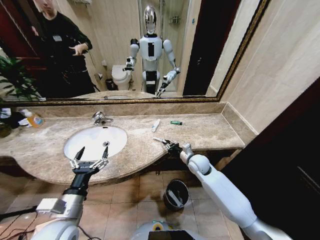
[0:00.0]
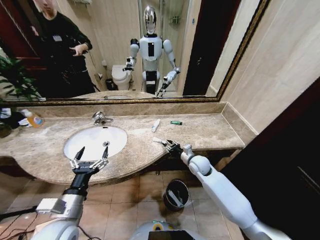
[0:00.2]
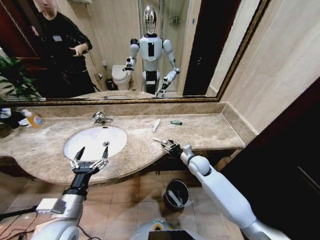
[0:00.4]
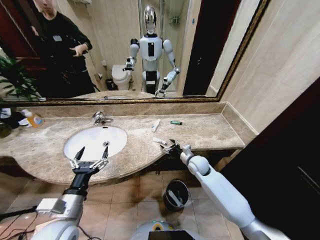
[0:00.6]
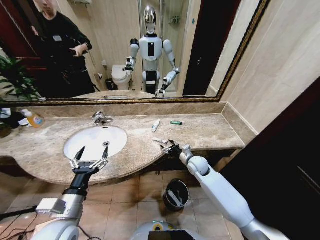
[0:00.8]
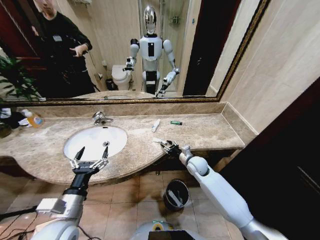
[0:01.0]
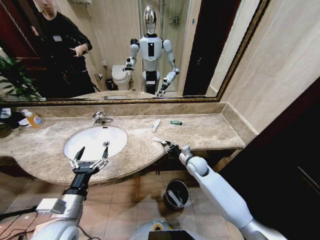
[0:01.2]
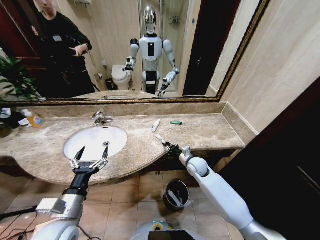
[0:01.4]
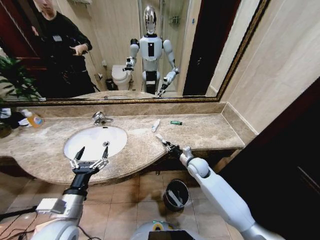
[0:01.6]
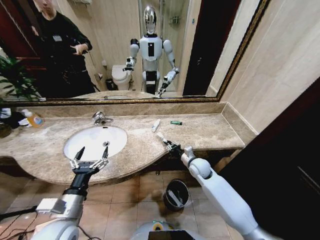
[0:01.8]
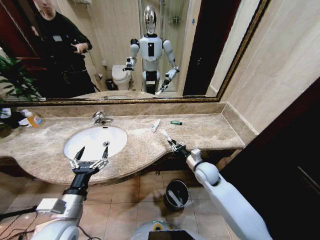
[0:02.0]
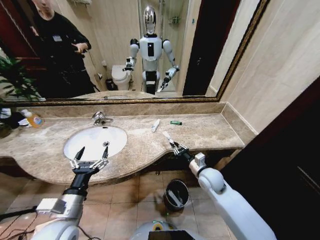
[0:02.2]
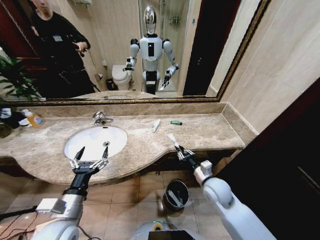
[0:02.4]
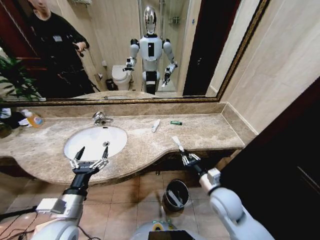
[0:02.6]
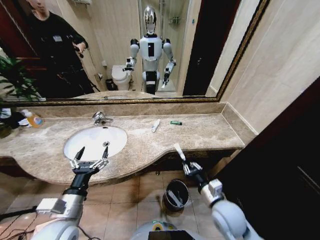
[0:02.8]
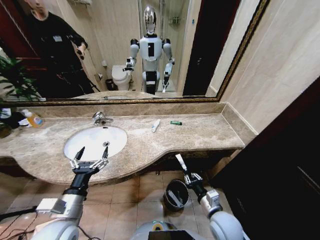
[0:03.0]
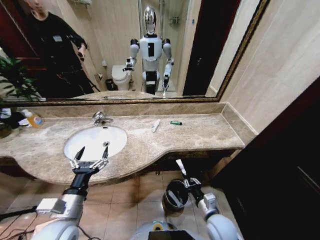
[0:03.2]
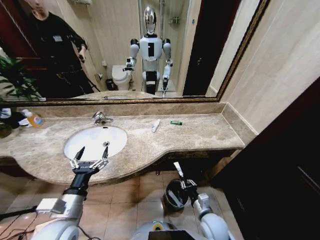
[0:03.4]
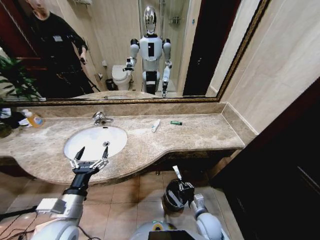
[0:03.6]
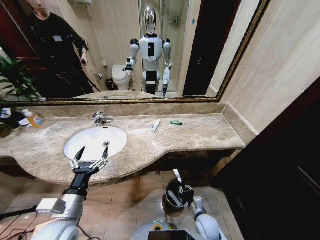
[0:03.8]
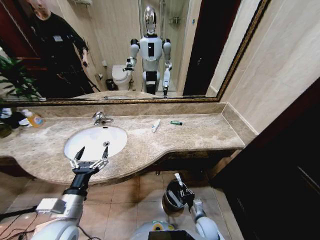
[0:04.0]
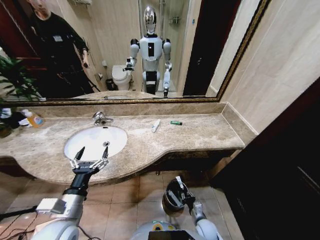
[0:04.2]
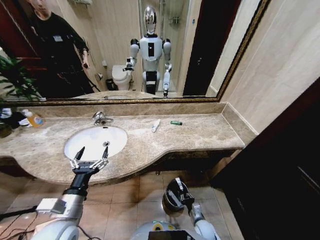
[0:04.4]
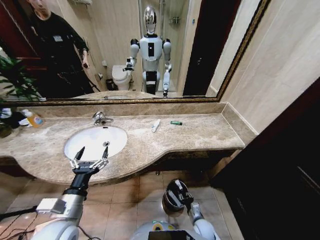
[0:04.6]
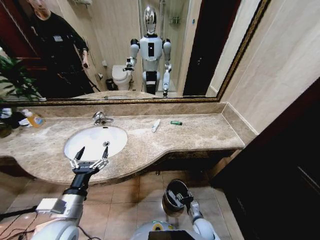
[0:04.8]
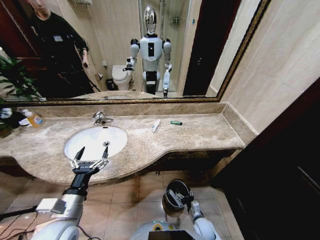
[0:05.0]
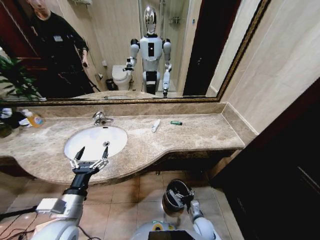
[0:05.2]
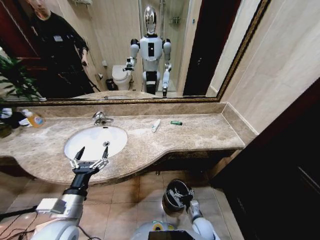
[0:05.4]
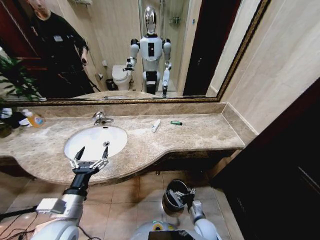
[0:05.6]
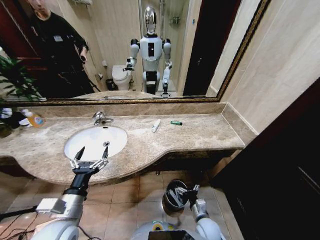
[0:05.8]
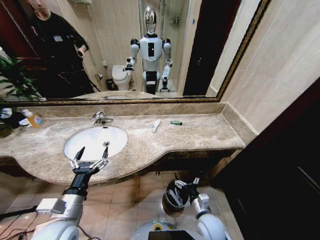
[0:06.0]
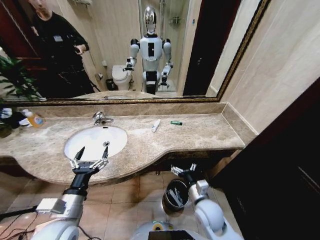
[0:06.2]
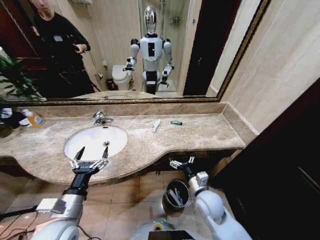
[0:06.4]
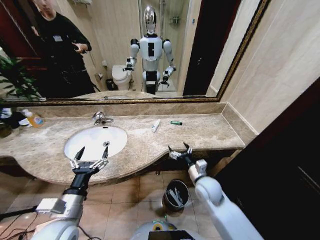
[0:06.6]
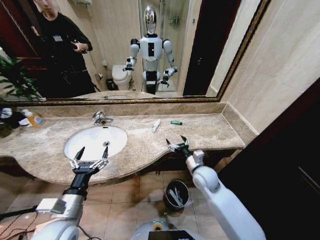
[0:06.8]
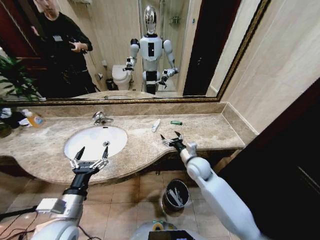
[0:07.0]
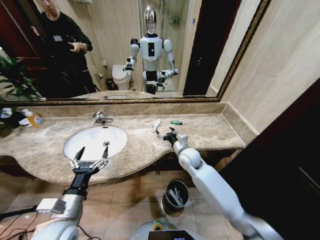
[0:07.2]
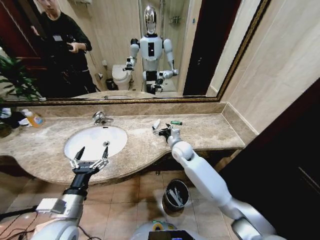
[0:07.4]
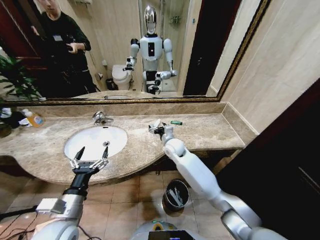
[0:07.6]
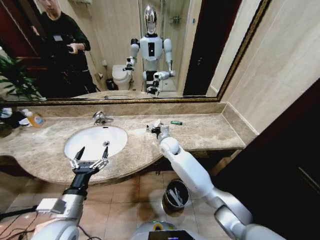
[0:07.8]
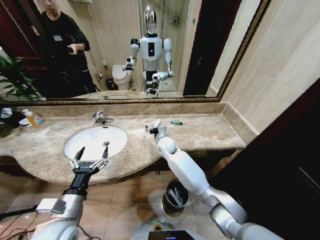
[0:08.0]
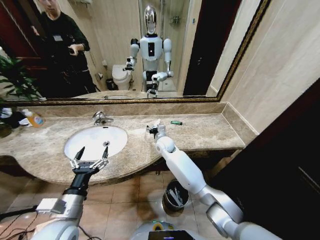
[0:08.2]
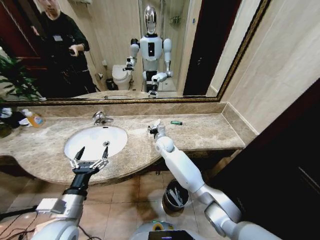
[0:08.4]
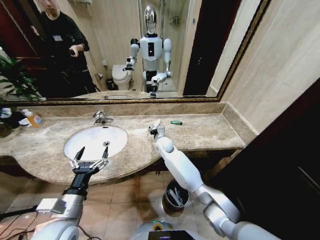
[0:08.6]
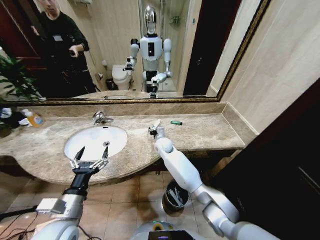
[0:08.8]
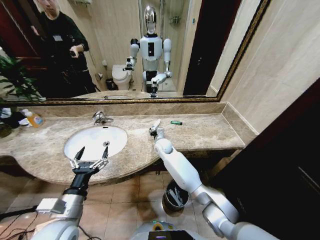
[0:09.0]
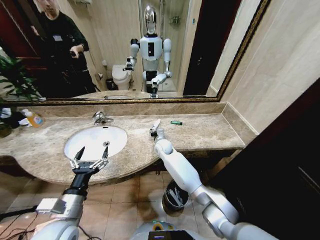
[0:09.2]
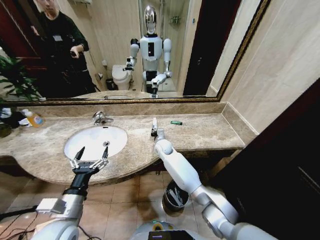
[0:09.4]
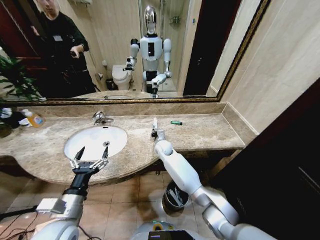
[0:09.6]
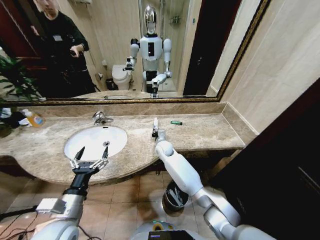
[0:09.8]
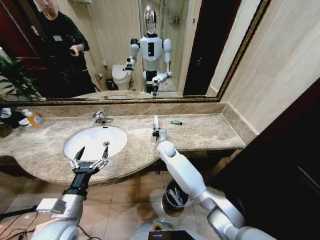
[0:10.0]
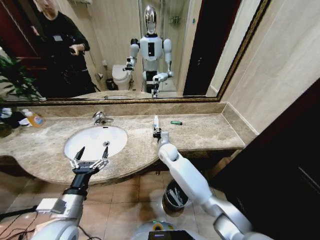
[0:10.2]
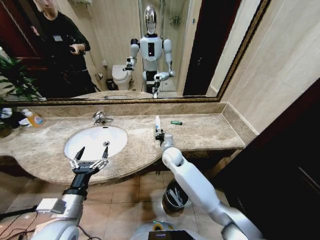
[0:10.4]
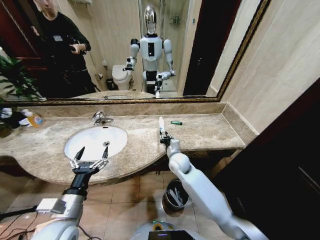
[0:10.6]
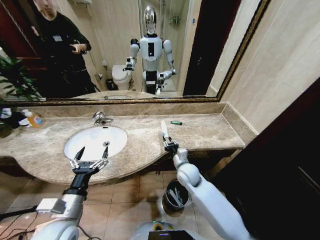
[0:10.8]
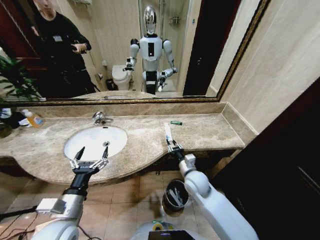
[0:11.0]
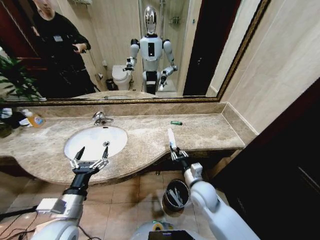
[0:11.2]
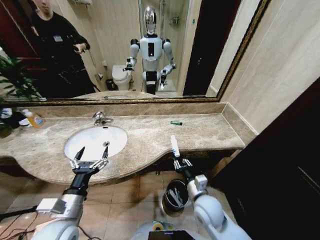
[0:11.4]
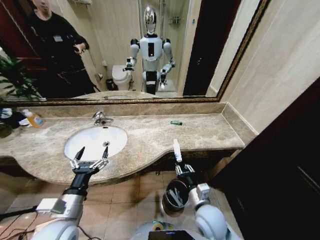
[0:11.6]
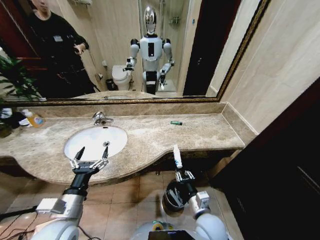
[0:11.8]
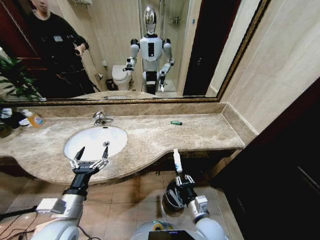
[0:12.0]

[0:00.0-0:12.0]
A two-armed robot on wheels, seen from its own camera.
Task of the whole recording: Pick up the trash from the sink and place it in the trash bin.
0:00.0 to 0:01.6: The right gripper opens, then closes again.
0:01.6 to 0:03.0: The right gripper moves backward, approximately 25 cm.
0:03.0 to 0:04.4: The right gripper moves downward, approximately 20 cm.
0:04.4 to 0:06.0: The right gripper heads upward, covering roughly 15 cm, and opens.
0:06.0 to 0:07.6: The right gripper shifts approximately 35 cm forward and upward.
0:07.6 to 0:09.0: The right gripper heads to the left, covering some 5 cm, and closes up.
0:09.0 to 0:10.4: The right gripper goes some 5 cm backward.
0:10.4 to 0:12.0: The right gripper moves backward, some 30 cm.

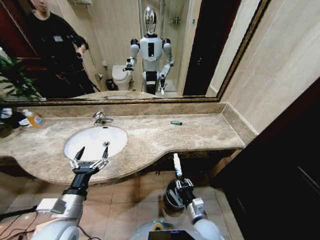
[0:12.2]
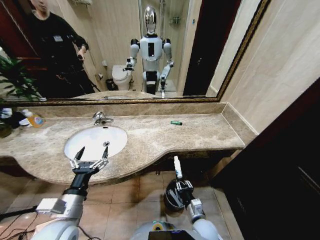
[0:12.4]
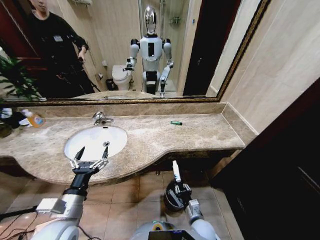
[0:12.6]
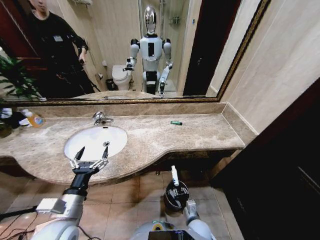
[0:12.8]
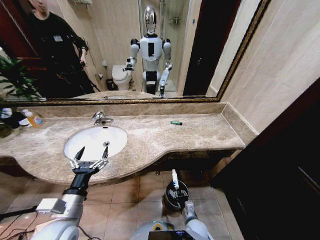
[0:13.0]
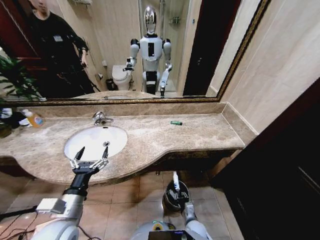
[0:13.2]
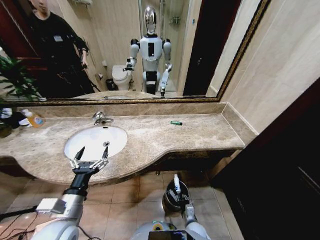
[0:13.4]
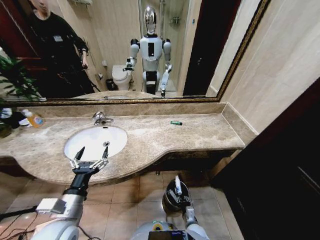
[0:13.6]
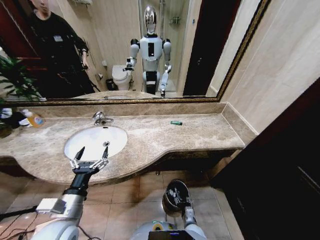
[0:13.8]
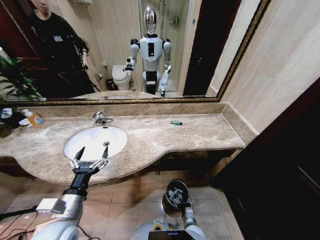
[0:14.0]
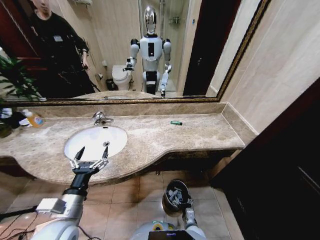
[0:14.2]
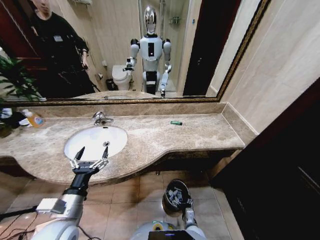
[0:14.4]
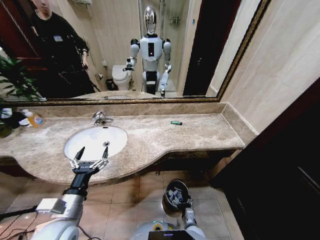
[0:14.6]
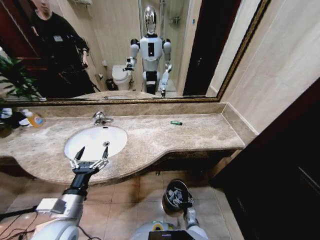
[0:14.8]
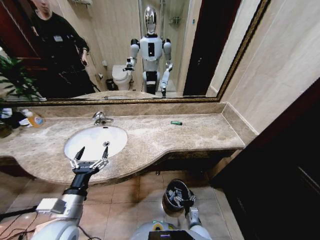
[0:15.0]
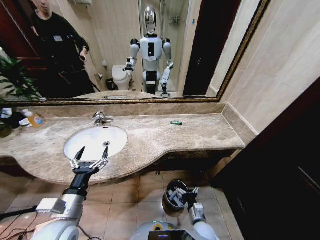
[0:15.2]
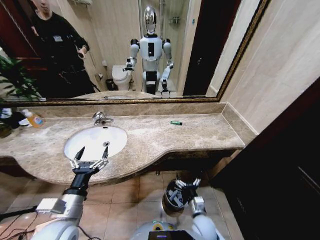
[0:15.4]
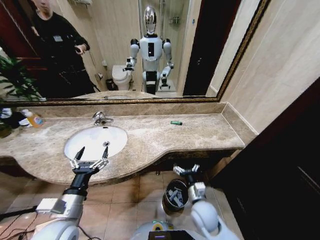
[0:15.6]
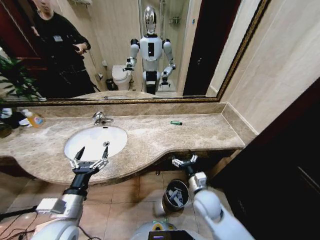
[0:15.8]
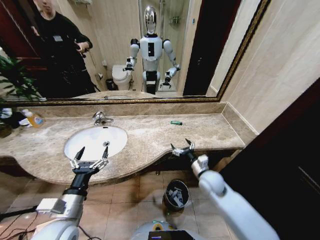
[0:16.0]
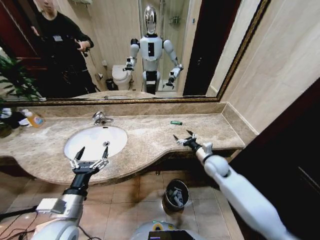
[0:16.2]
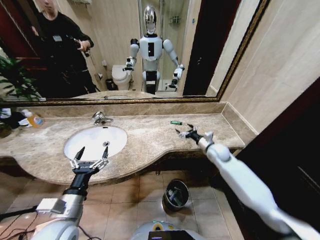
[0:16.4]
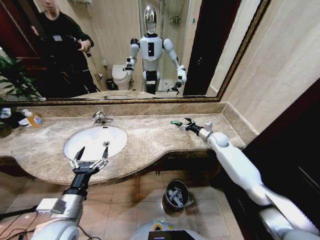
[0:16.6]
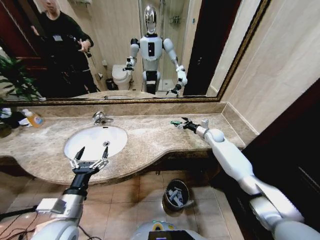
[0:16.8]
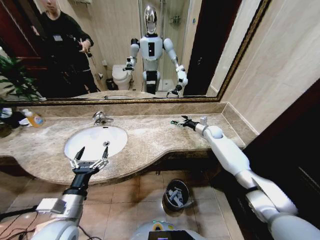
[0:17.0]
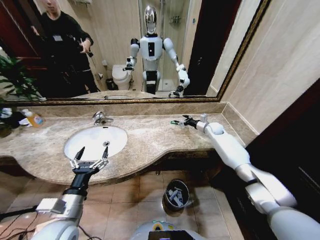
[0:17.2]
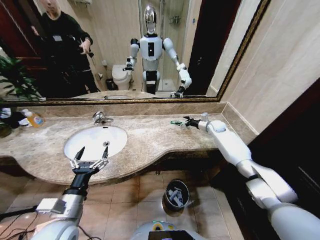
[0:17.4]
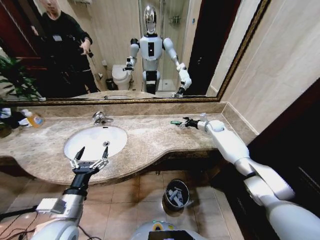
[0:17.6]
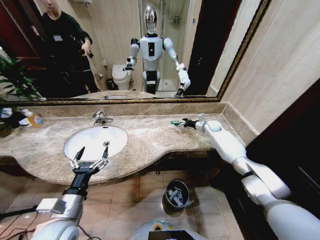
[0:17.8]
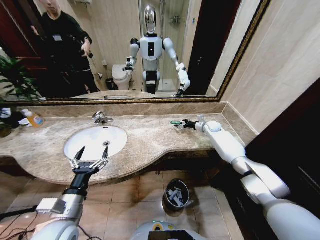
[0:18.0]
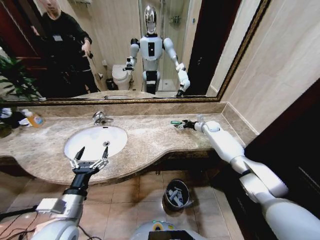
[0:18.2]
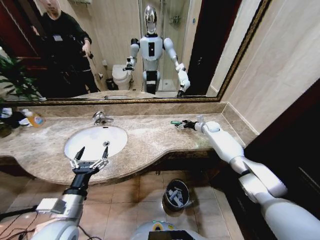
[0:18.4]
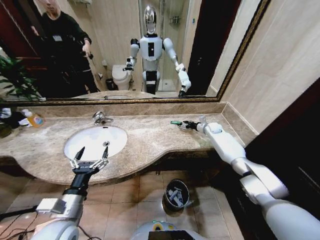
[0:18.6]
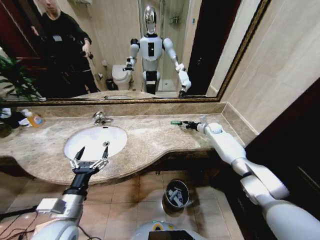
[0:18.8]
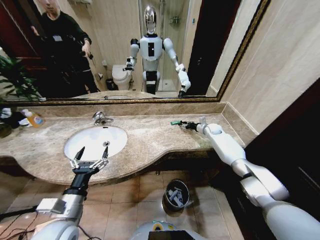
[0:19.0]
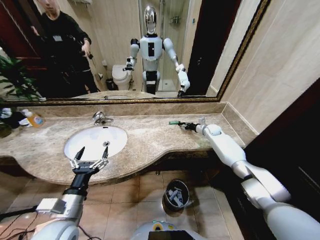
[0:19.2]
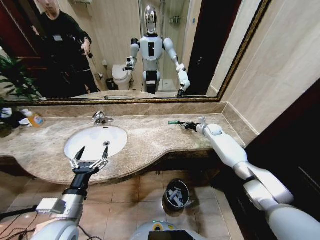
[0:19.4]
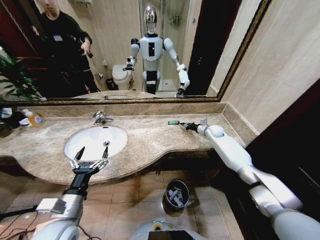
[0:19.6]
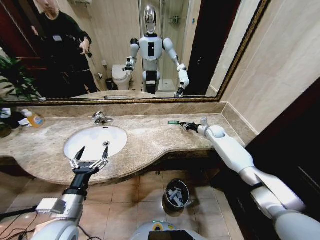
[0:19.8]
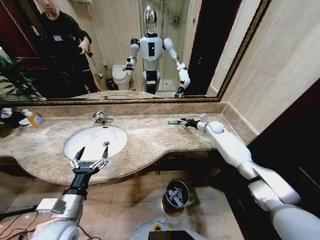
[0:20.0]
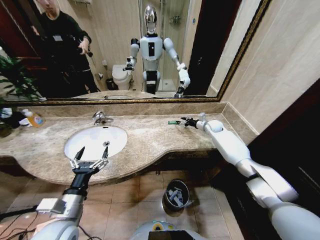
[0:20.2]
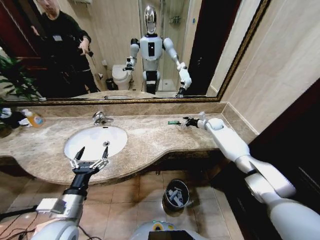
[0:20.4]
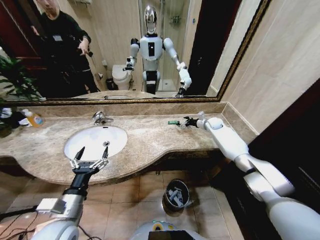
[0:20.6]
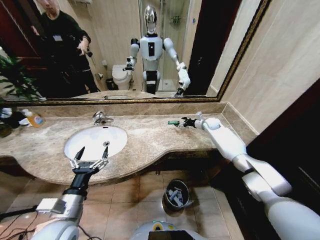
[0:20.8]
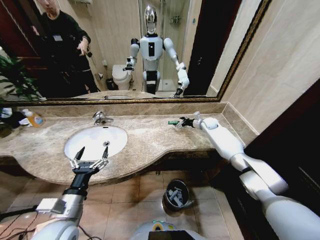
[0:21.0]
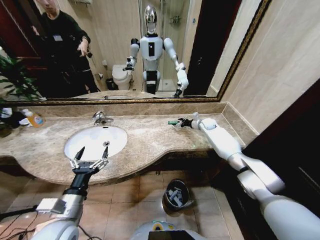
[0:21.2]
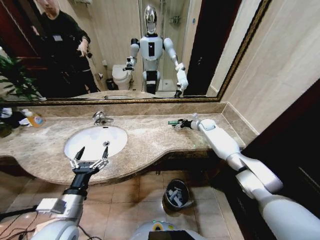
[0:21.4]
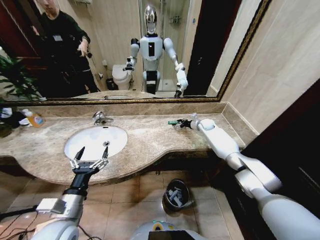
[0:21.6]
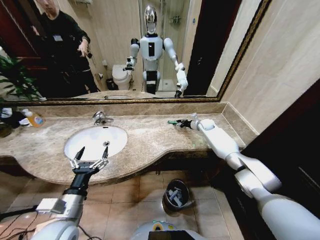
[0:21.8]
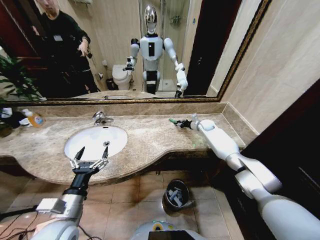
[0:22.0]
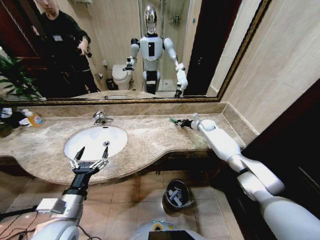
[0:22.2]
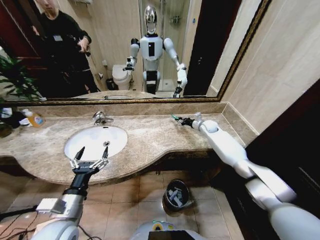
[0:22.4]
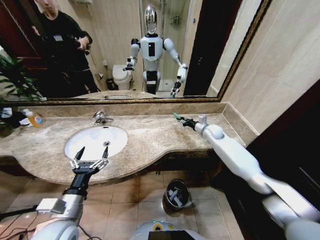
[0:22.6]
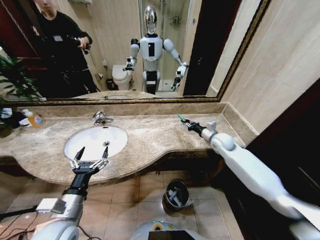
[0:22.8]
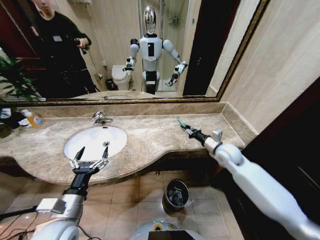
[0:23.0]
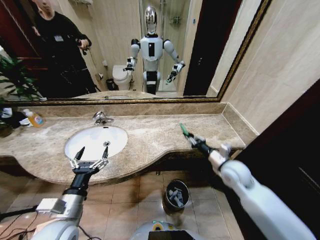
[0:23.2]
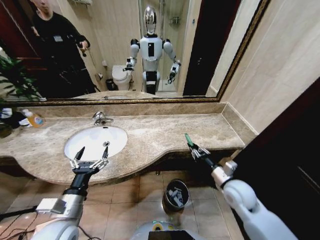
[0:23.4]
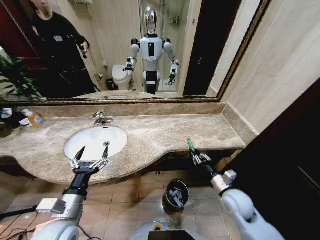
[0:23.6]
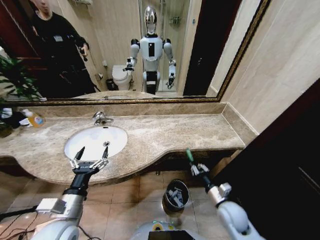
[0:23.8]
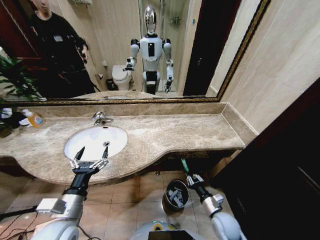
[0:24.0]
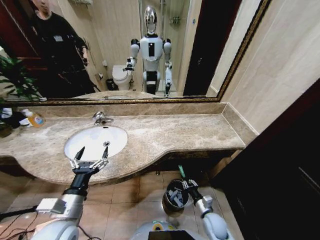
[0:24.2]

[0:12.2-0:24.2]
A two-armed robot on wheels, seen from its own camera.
Task of the whole recording: Pick up the trash from the sink and place it in the trash bin.
0:12.2 to 0:13.8: The right gripper shifts some 20 cm downward.
0:13.8 to 0:15.2: The right gripper shifts some 10 cm upward, and opens its fingers.
0:15.2 to 0:16.6: The right gripper travels forward, upward and to the right by about 50 cm.
0:16.6 to 0:18.2: The right gripper travels forward by roughly 10 cm.
0:18.2 to 0:19.8: The right gripper closes its fingers.
0:19.8 to 0:21.2: The right gripper is displaced forward by approximately 5 cm, and opens up.
0:21.2 to 0:22.6: The right gripper moves backward, some 10 cm, and closes up.
0:22.6 to 0:24.2: The right gripper heads backward and downward, covering roughly 40 cm.
